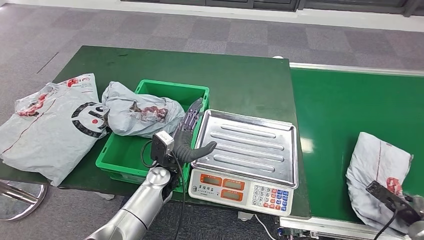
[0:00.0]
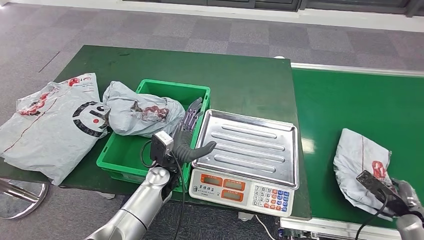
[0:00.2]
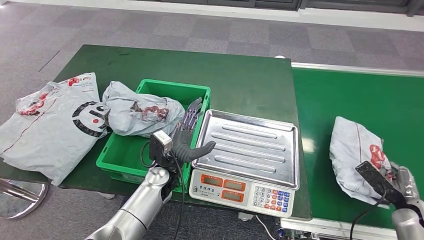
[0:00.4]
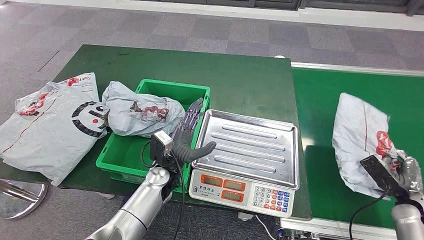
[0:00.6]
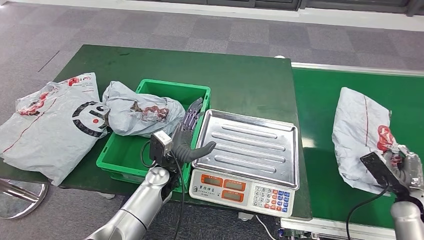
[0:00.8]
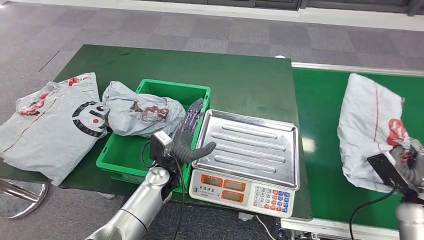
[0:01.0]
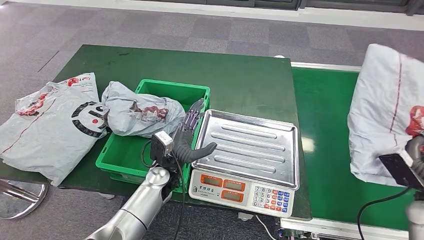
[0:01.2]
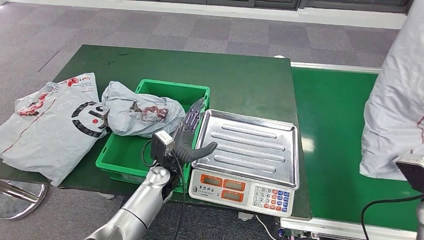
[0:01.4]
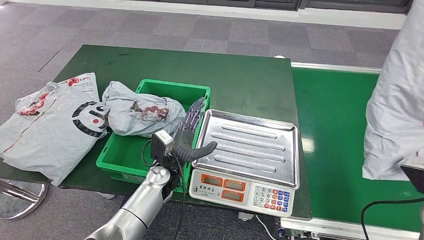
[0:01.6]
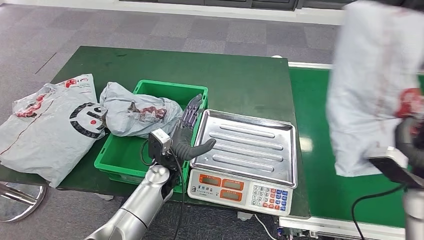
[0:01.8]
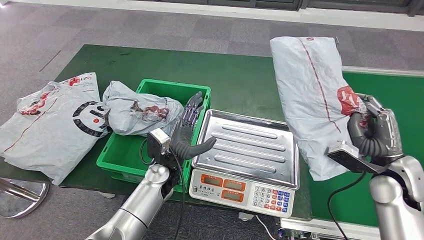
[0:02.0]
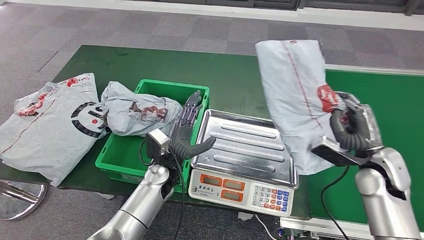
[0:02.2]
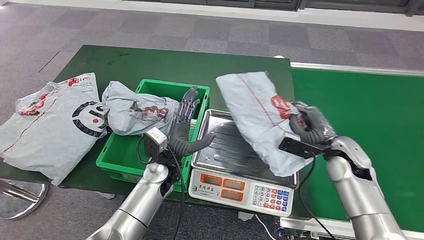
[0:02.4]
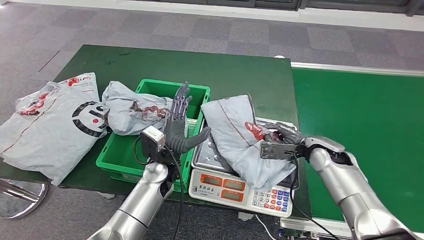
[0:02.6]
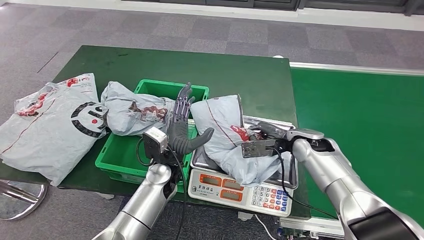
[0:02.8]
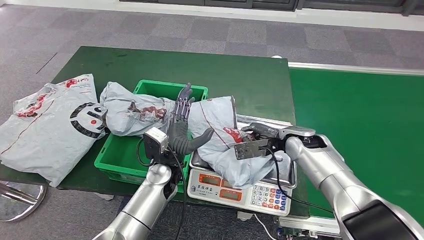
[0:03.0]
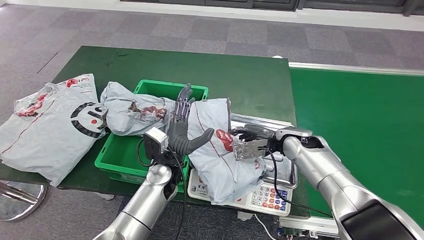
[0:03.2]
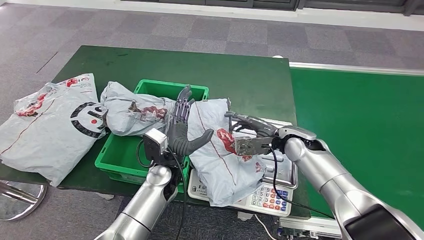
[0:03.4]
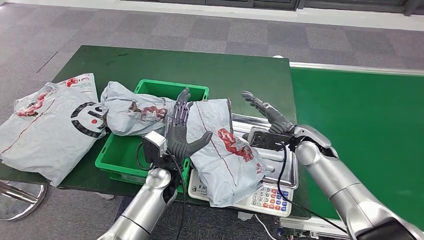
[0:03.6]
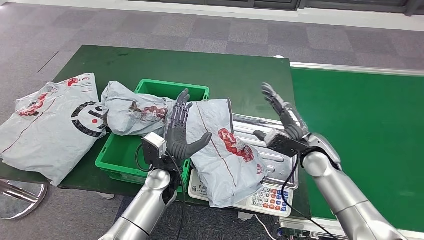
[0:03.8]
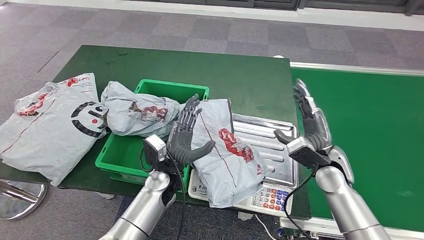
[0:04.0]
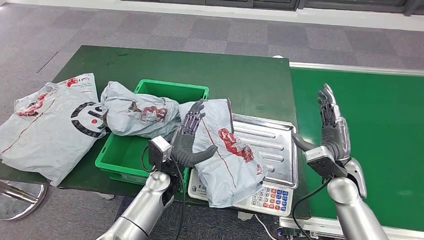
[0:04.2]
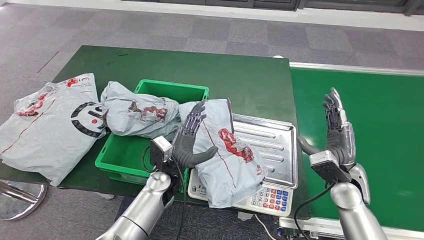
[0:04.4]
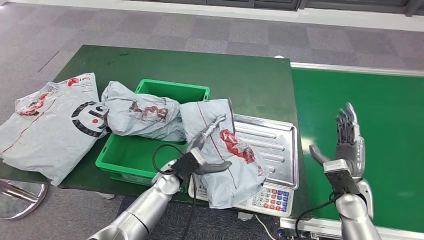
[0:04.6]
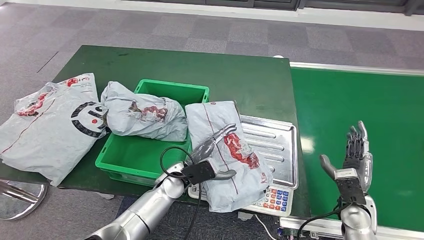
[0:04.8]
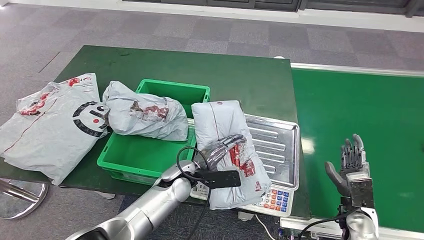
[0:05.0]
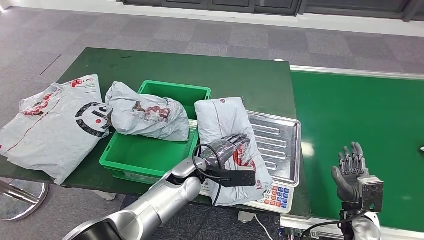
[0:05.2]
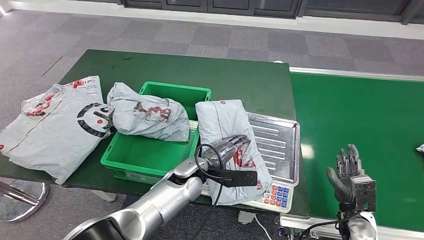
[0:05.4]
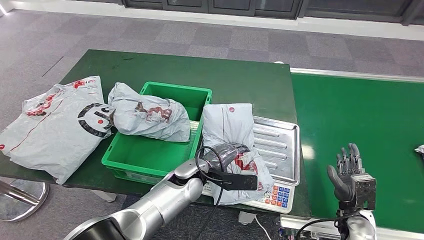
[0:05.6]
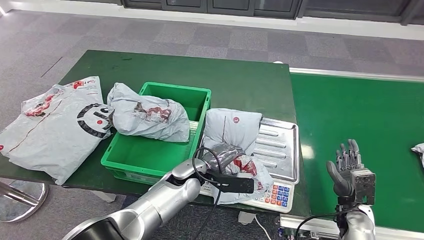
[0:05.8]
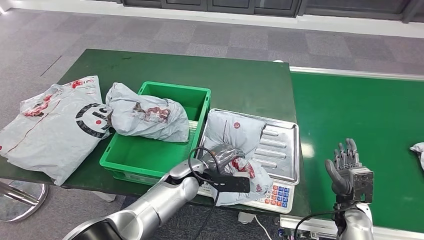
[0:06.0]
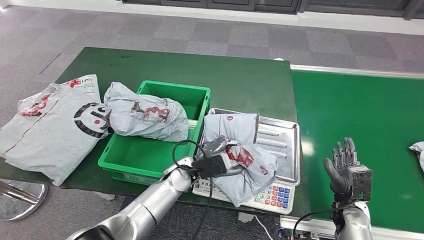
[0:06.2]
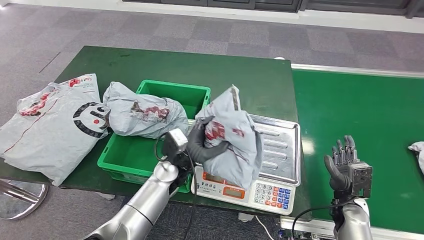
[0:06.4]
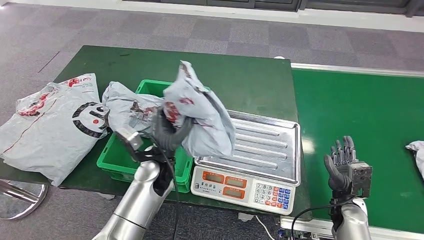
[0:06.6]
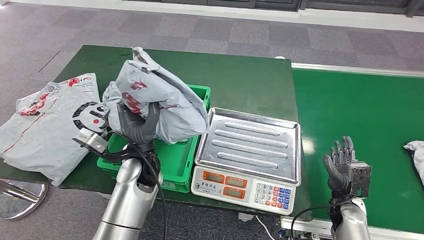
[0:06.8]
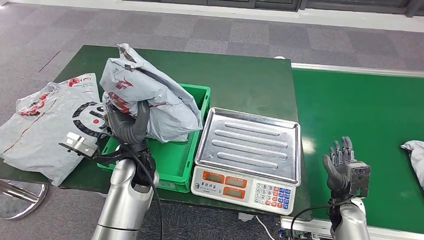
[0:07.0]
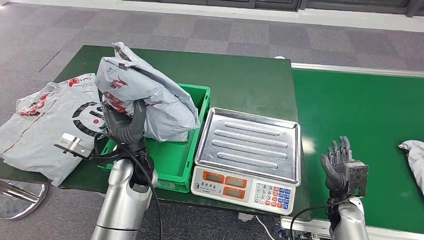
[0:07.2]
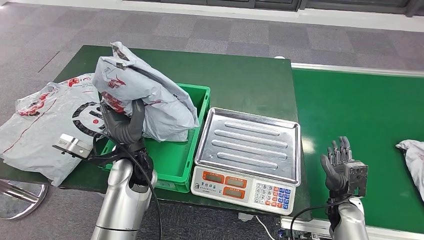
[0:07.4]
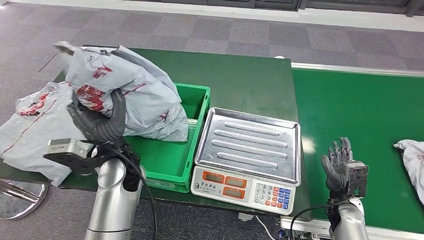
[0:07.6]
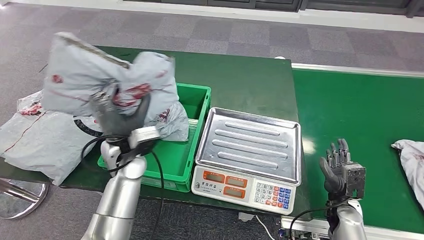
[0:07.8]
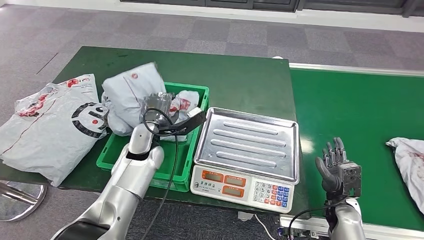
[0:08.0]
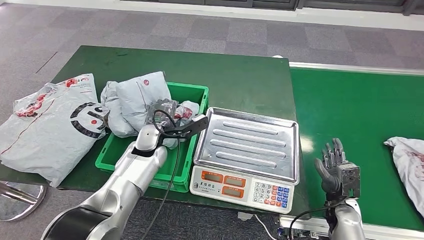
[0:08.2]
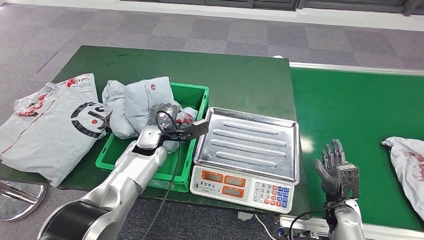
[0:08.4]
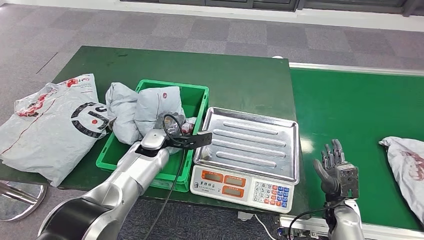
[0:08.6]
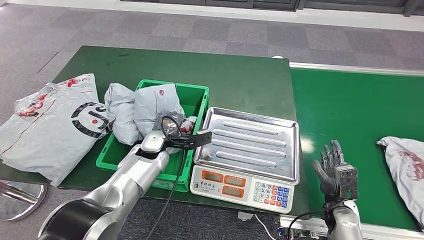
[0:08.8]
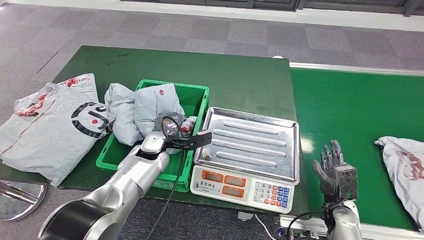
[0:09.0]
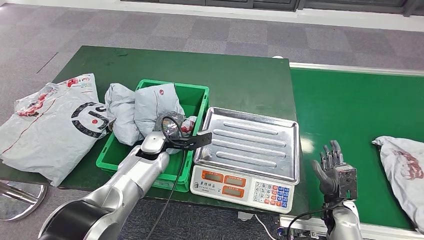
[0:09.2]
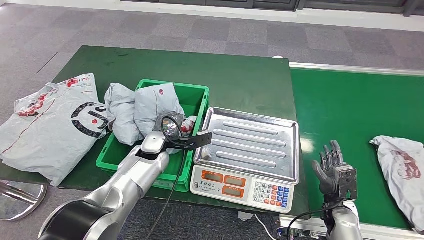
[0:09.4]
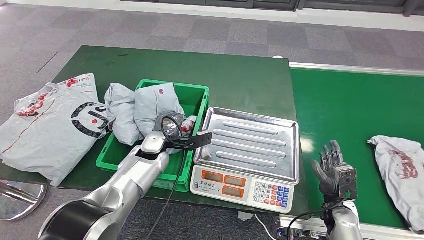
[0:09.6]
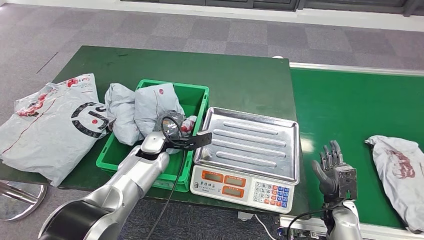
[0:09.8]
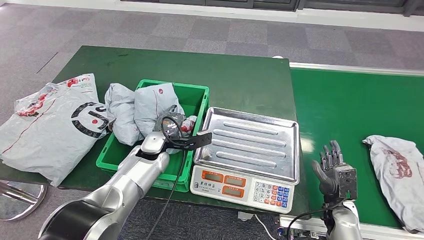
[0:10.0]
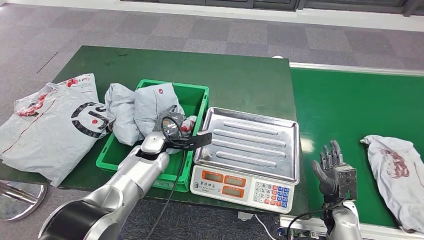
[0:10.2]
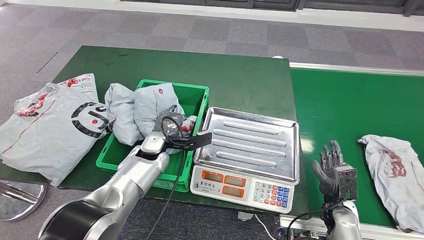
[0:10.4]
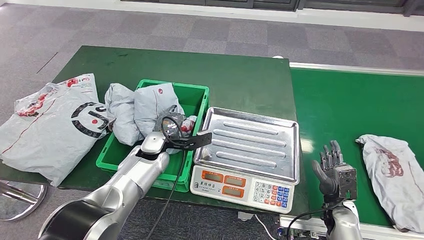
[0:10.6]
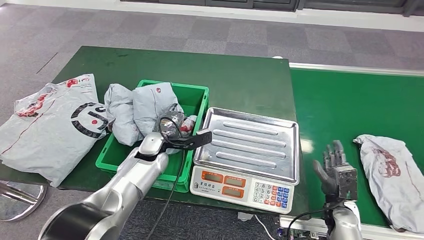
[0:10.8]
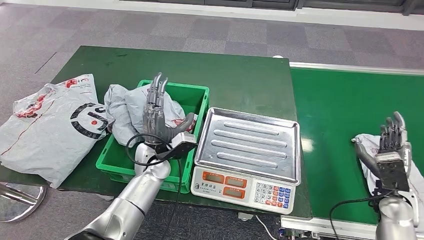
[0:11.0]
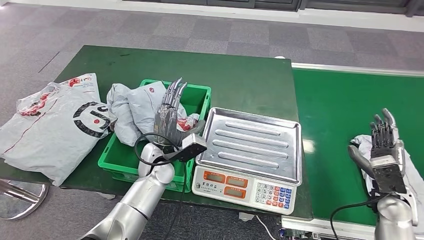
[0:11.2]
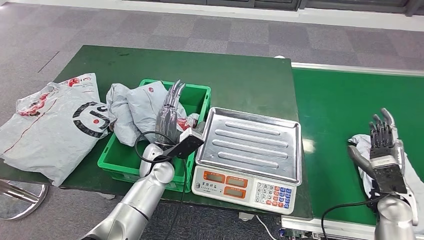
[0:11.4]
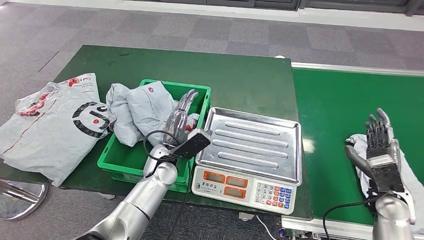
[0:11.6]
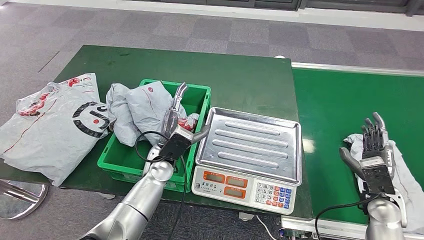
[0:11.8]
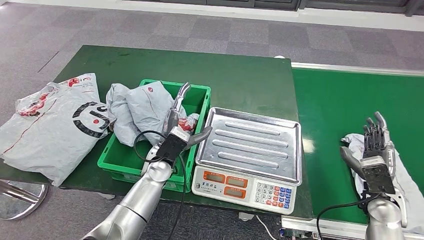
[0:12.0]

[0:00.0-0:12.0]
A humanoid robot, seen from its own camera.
Step, 0:02.0 to 0:04.0: Place the parcel onto the inbound machine.
Step, 0:04.4 to 0:06.8: Pick up the parcel from the inbound machine.
Step, 0:07.0 to 0:09.4: Place the parcel into the delivery box.
0:00.0 to 0:01.6: The right hand goes some 20 cm upward and to the left.
0:03.0 to 0:04.4: The right hand goes roughly 15 cm backward and to the right.
0:09.0 to 0:10.4: Both hands stay about where they are.

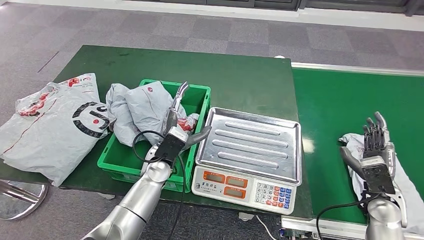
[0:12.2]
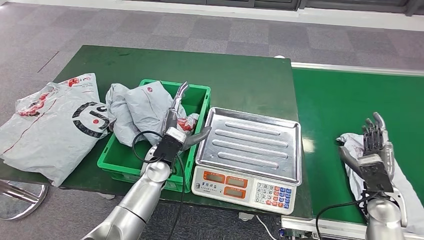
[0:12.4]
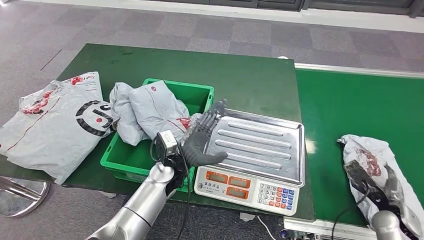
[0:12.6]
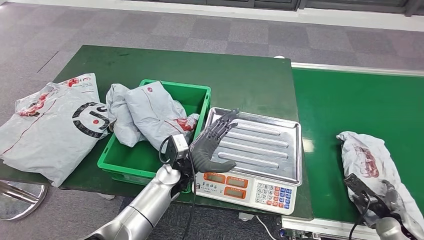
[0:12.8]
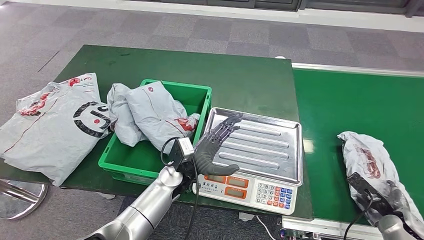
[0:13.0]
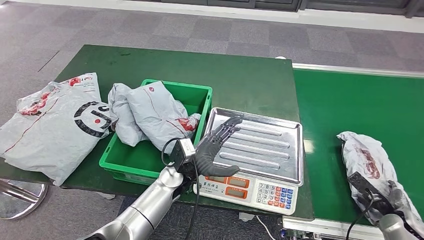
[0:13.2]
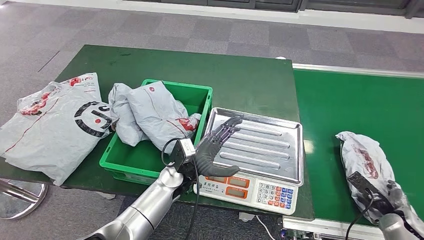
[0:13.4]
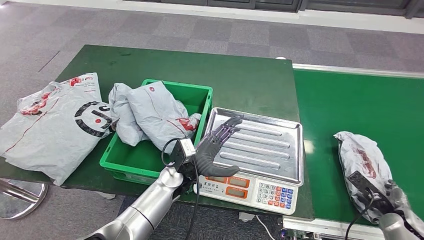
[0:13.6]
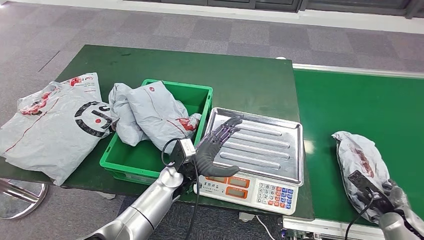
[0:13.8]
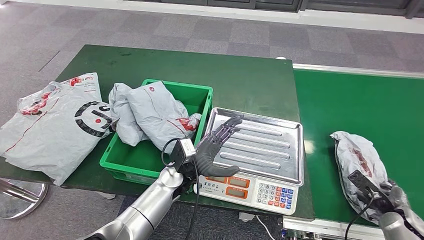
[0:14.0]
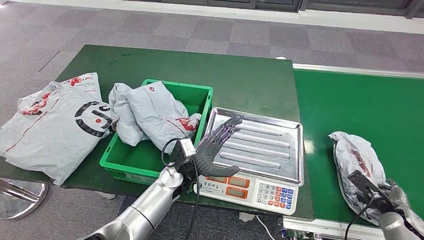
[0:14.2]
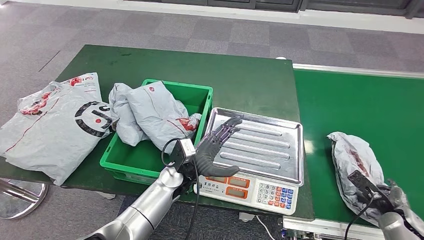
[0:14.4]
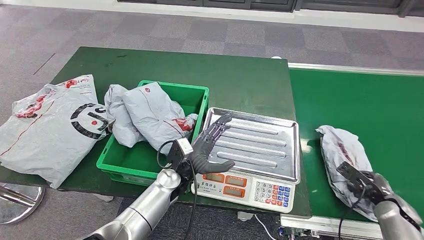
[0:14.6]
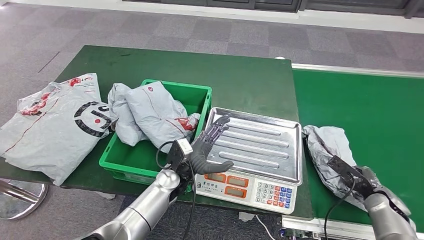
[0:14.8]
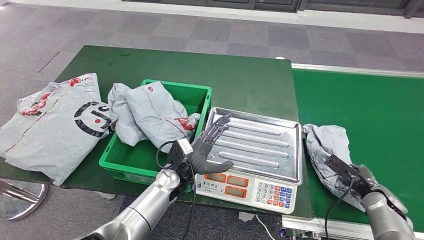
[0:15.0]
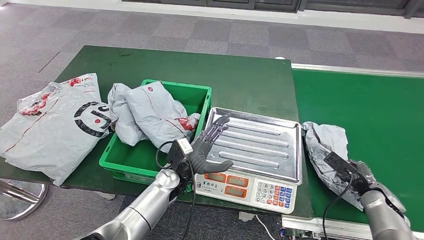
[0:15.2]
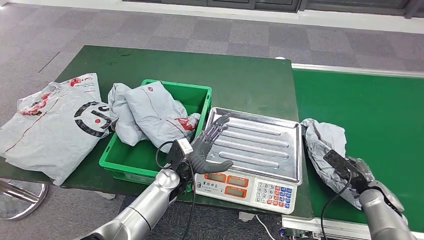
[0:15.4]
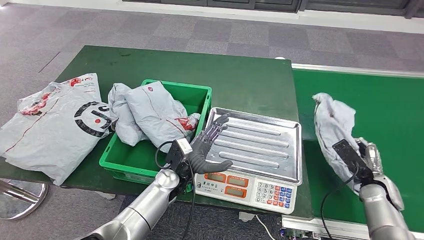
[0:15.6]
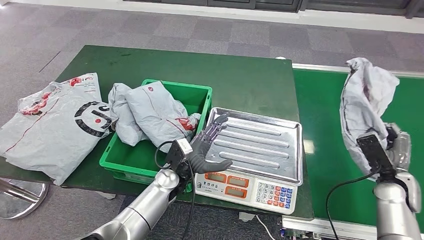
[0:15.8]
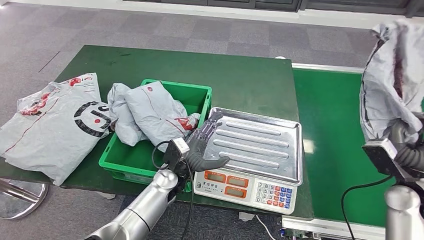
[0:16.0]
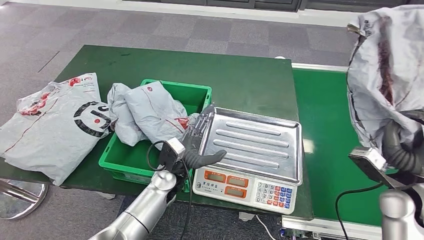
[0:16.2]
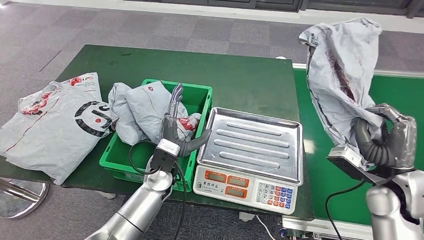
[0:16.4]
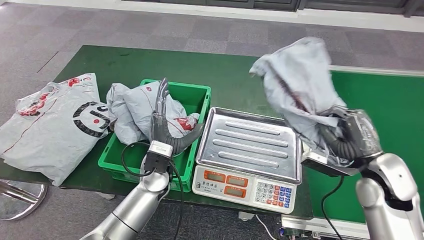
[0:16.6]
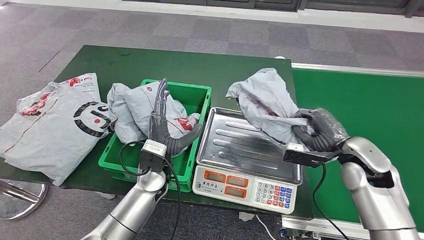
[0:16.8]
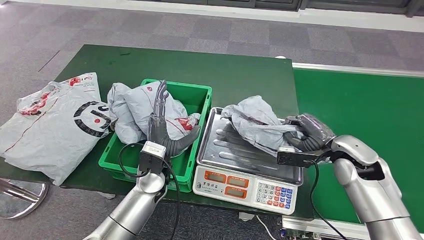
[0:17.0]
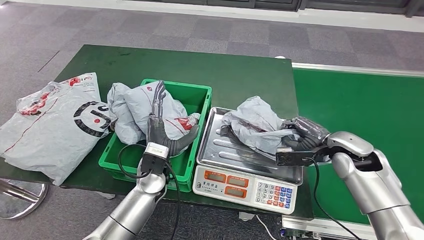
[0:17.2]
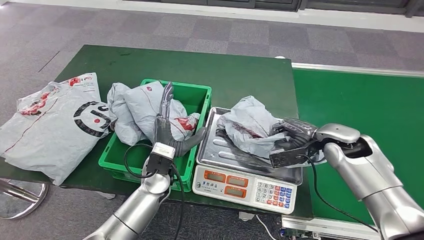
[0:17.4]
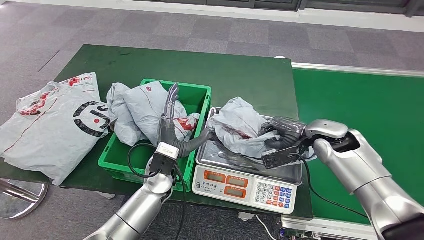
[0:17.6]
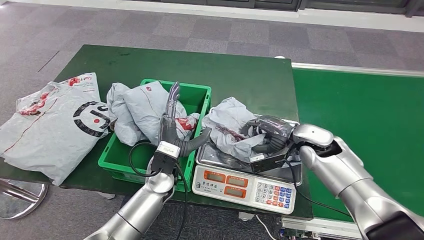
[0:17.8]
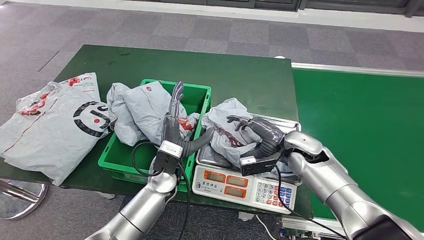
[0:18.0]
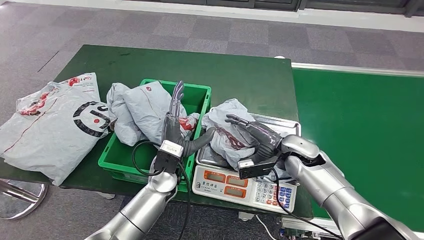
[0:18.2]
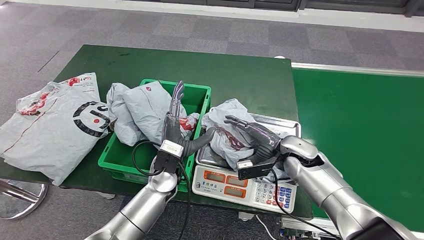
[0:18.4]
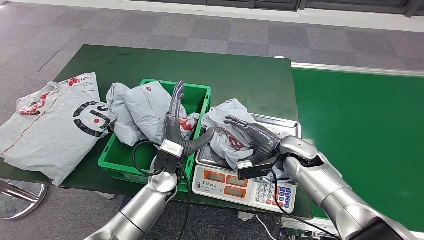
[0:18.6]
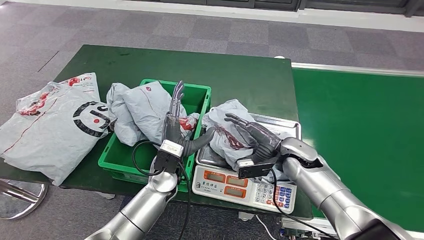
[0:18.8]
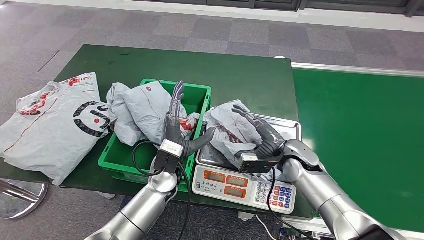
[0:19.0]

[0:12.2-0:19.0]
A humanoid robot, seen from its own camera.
Step, 0:12.2 to 0:15.6: Pick up the parcel from the conveyor belt.
Step, 0:15.8 to 0:18.0: Place the parcel onto the inbound machine.
0:13.6 to 0:15.0: The right hand travels forward by roughly 5 cm.
0:17.6 to 0:19.0: The right hand goes roughly 10 cm downward and to the left.
